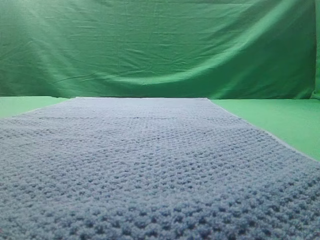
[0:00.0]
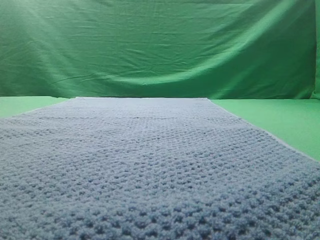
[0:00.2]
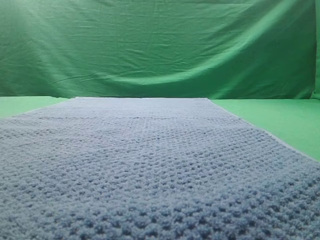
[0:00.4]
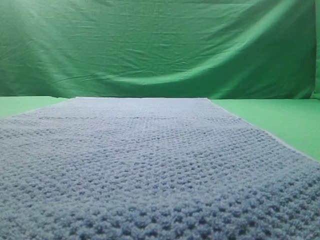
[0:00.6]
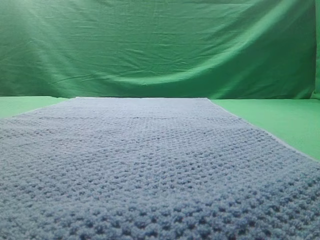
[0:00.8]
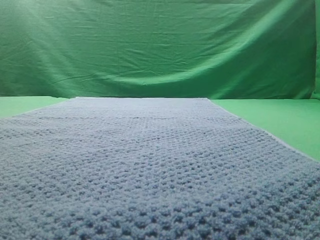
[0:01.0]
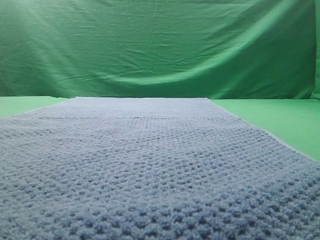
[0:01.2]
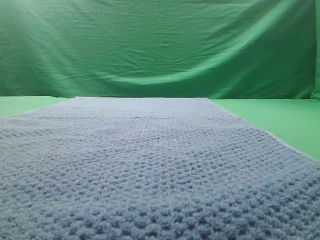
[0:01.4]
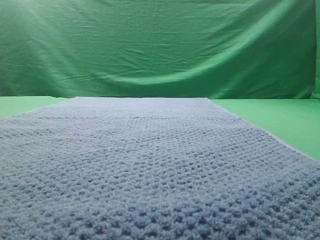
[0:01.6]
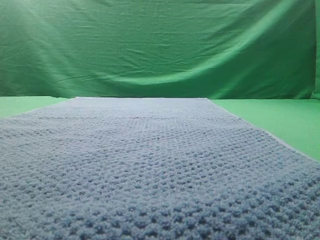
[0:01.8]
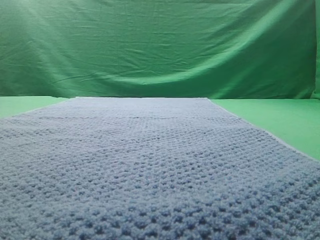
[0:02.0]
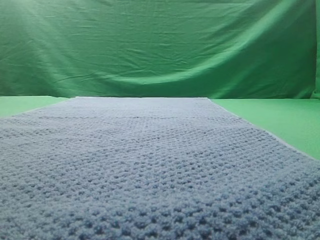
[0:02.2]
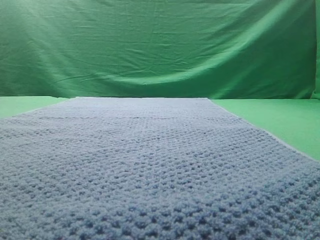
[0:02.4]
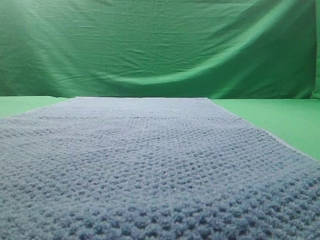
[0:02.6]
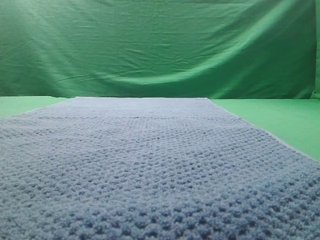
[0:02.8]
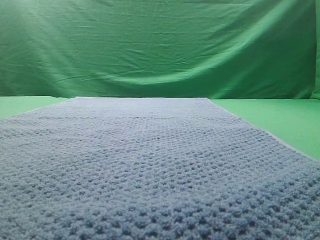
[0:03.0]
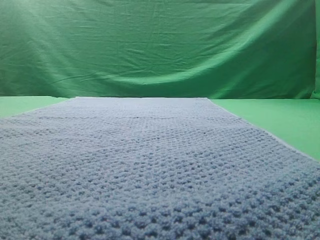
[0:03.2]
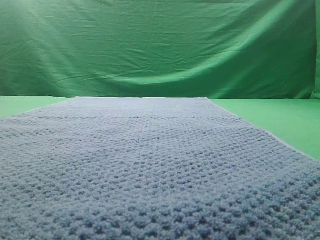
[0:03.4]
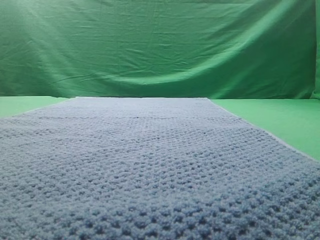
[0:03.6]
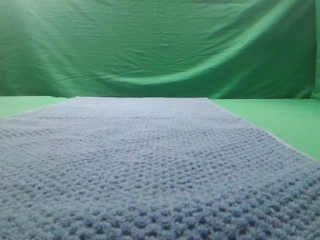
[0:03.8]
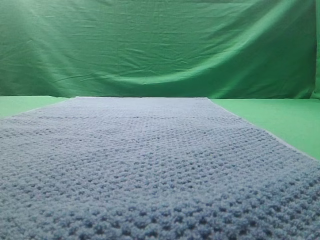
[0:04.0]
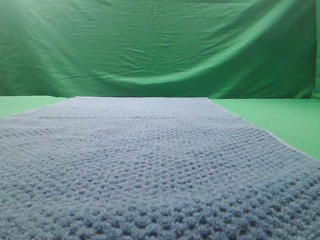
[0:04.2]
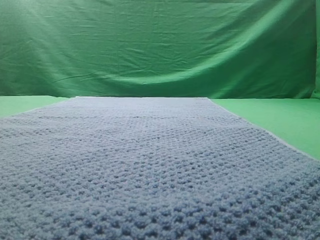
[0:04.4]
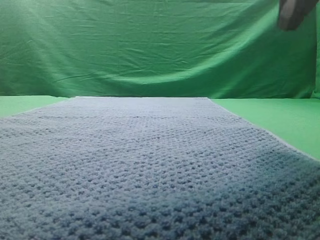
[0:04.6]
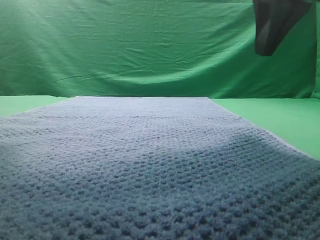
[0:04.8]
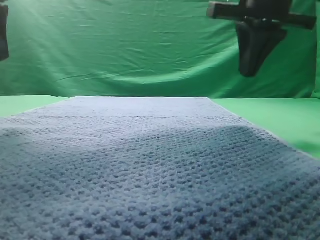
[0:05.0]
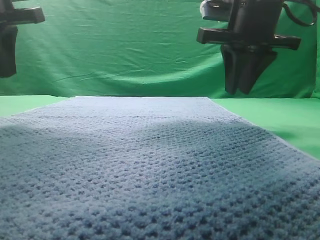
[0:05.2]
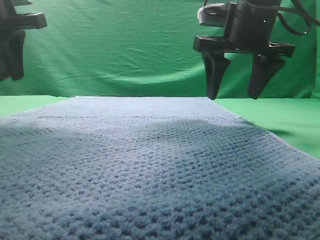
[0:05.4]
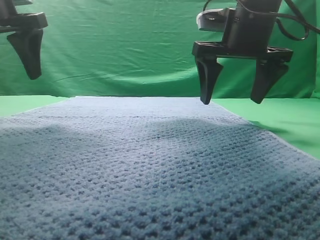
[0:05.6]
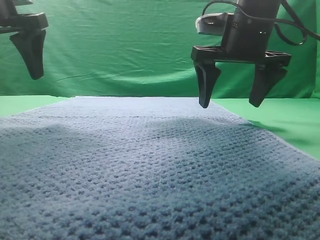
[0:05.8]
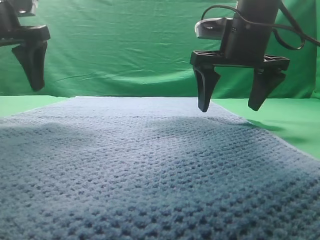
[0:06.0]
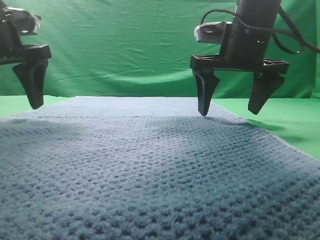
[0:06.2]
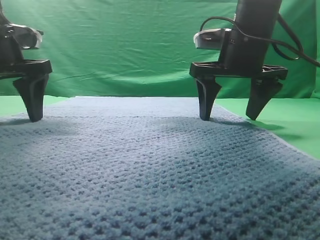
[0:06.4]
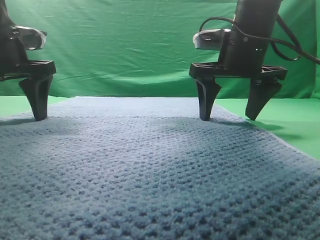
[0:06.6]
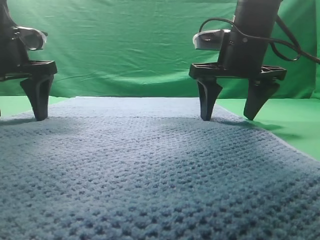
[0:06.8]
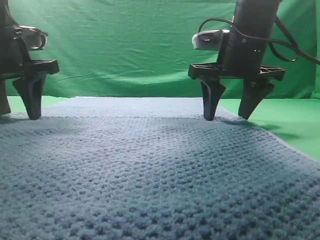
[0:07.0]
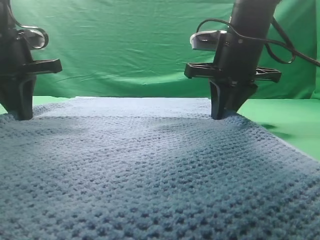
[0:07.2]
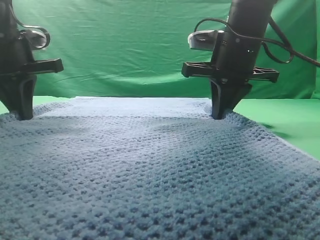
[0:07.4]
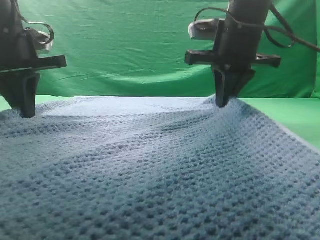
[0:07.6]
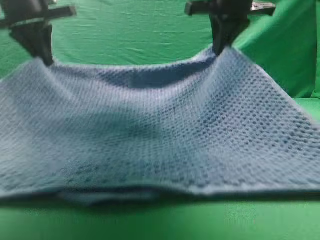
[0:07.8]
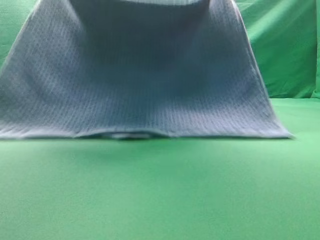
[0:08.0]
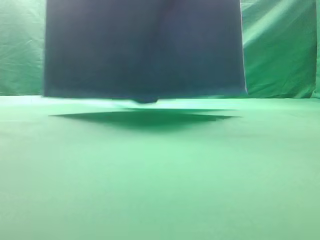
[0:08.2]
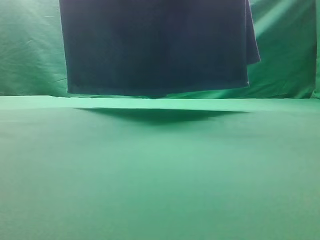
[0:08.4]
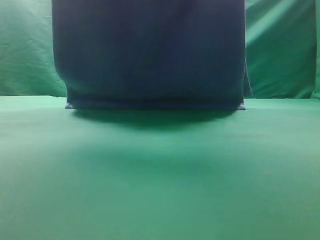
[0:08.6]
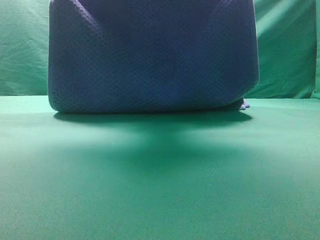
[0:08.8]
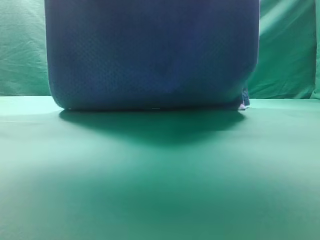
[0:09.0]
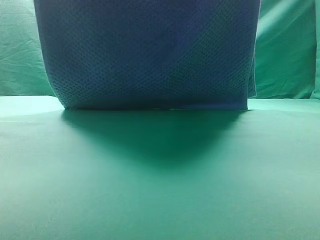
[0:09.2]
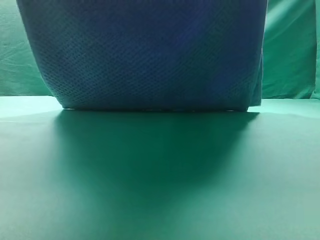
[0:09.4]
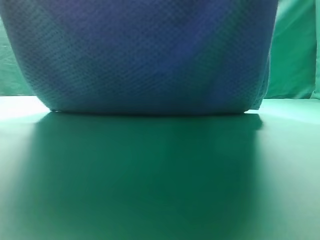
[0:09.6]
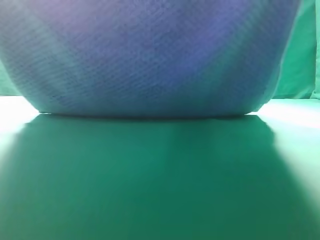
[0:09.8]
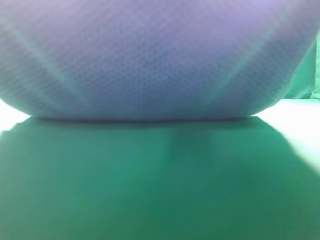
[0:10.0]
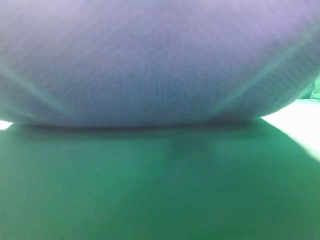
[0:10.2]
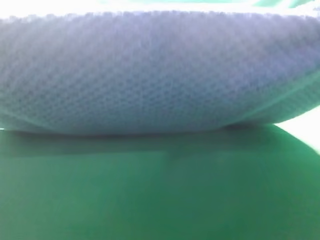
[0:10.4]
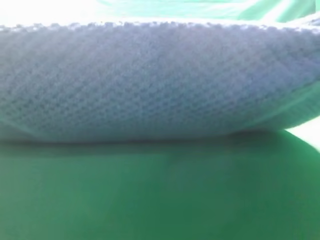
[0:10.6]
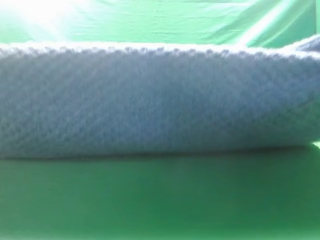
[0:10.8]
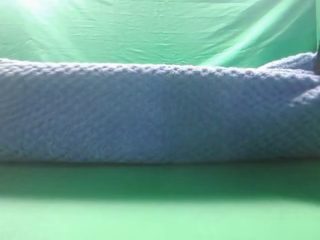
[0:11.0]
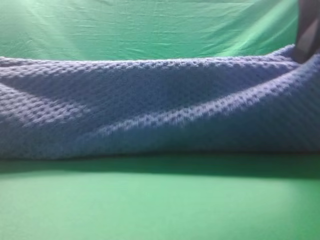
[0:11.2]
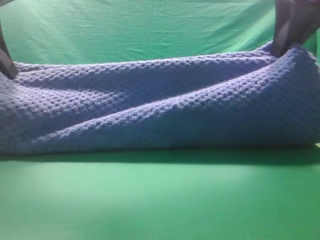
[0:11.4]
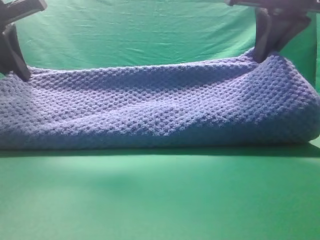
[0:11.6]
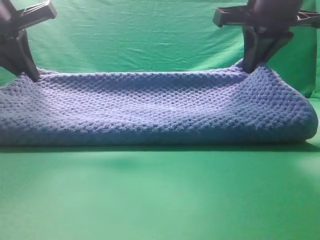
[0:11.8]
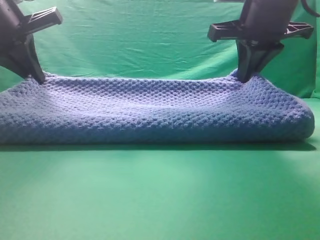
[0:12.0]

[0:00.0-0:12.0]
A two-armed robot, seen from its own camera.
Task of the whole recording: fold the towel on the table twice.
Step, 0:00.0 to 0:08.0: pick up the towel with two arm.
